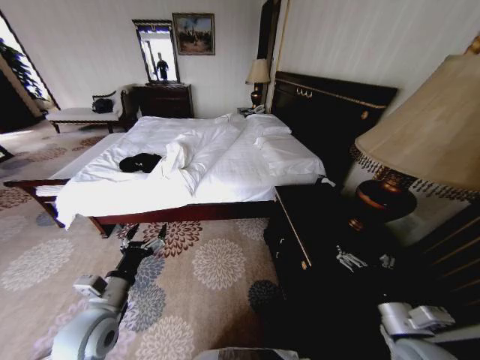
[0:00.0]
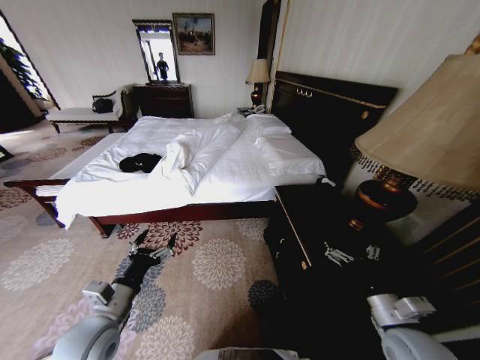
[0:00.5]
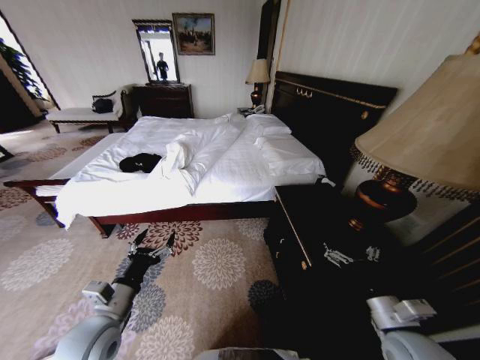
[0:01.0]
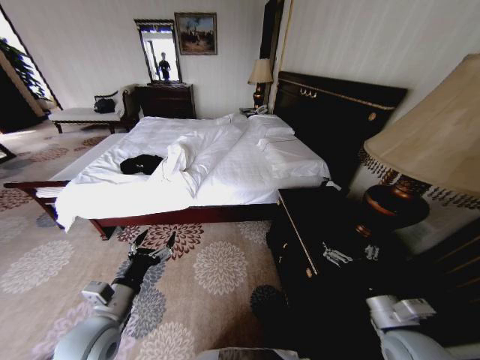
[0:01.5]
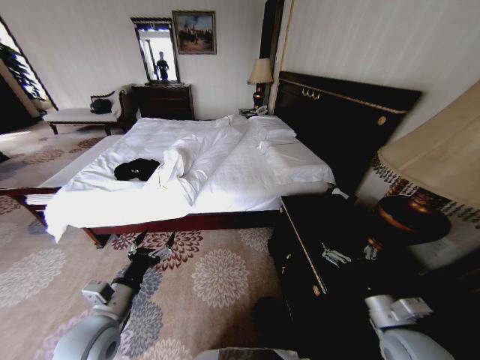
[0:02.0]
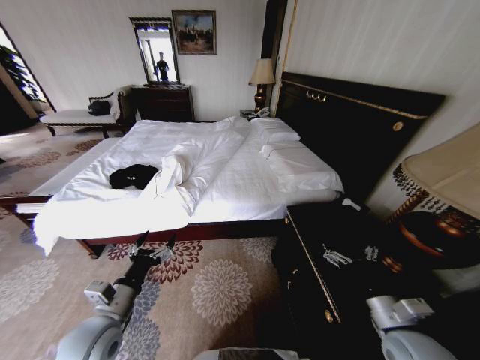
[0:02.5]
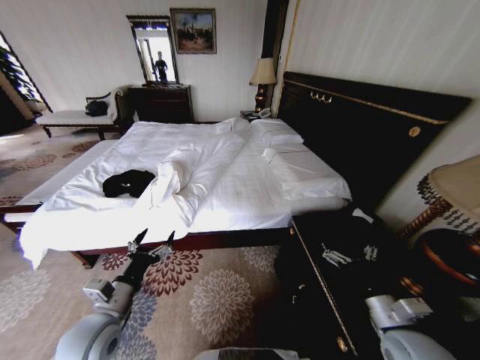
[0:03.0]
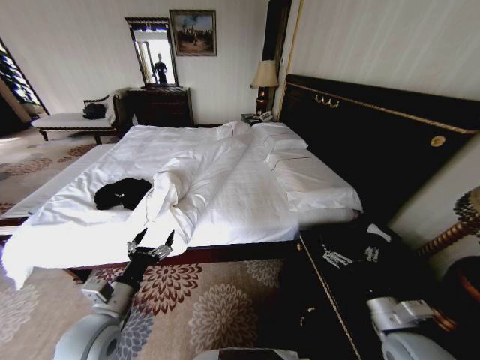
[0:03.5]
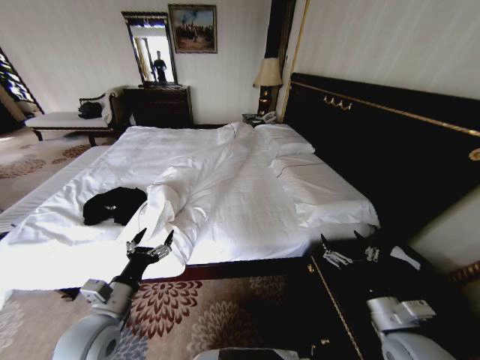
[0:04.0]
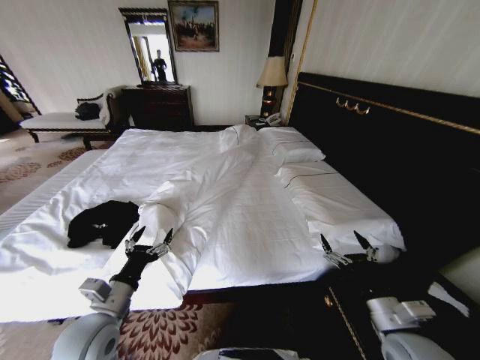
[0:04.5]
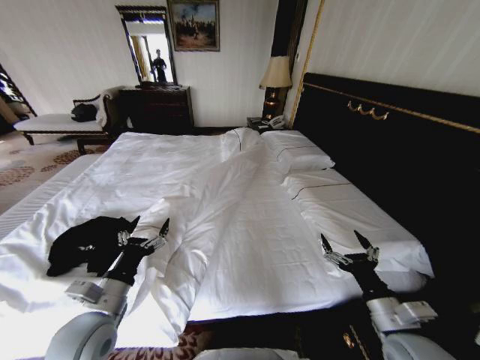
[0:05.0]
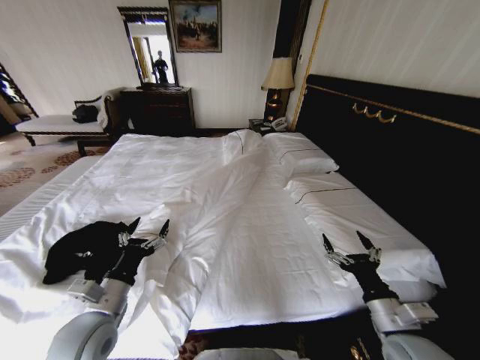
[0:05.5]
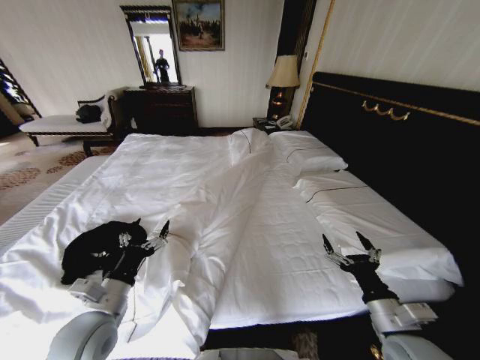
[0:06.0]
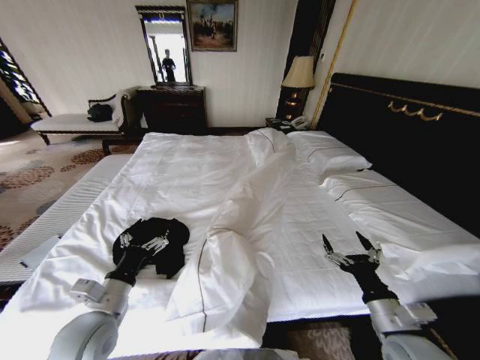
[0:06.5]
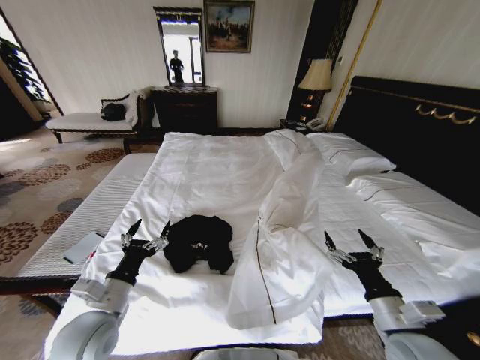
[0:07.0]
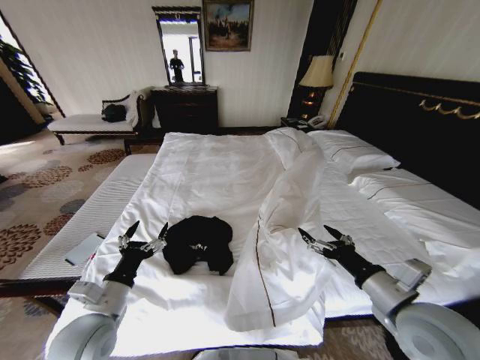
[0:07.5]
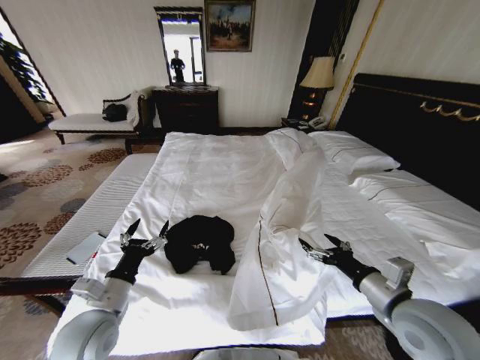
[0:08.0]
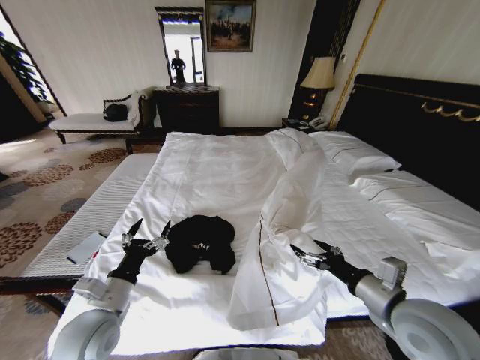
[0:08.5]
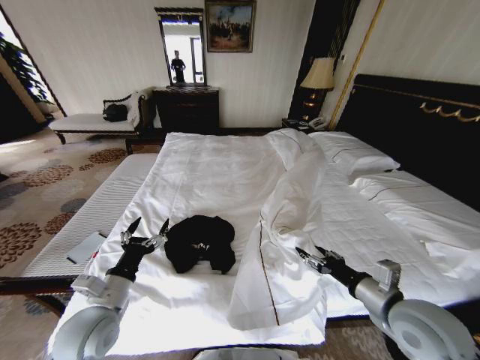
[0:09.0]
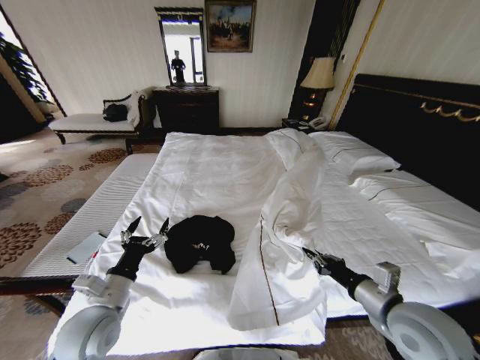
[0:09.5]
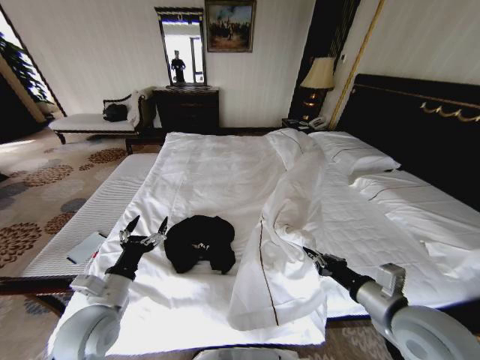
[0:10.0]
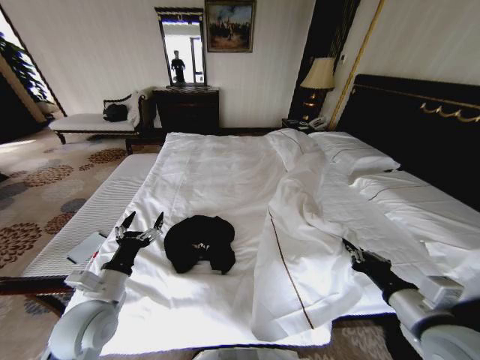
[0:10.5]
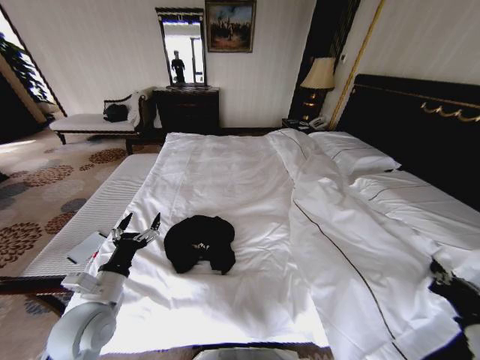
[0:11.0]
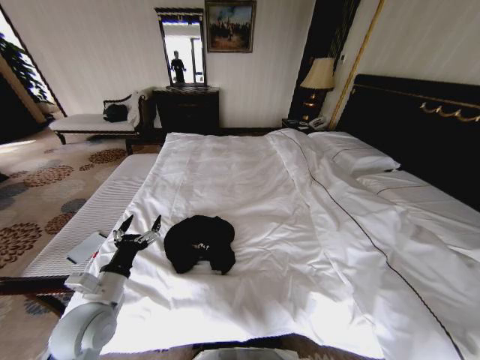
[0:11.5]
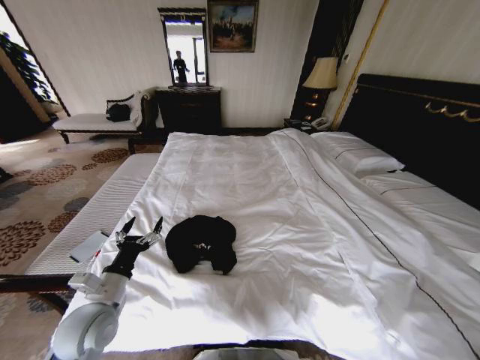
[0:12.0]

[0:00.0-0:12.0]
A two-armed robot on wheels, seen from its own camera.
Task of the whole recording: Fold the clothes on the bed.
0:06.0 to 0:08.0: The right gripper moves upward, approximately 10 cm.
0:08.0 to 0:10.0: The right gripper closes up.
0:10.0 to 0:12.0: The right gripper is displaced to the right, backward and downward by roughly 35 cm.

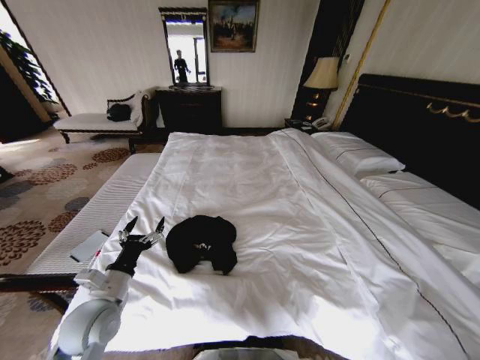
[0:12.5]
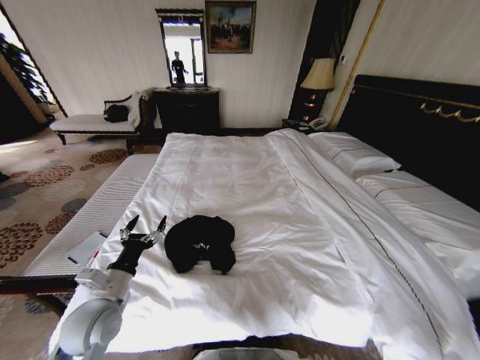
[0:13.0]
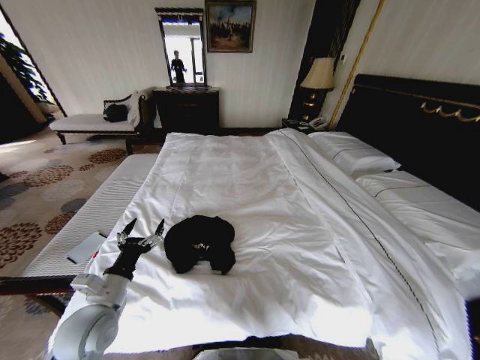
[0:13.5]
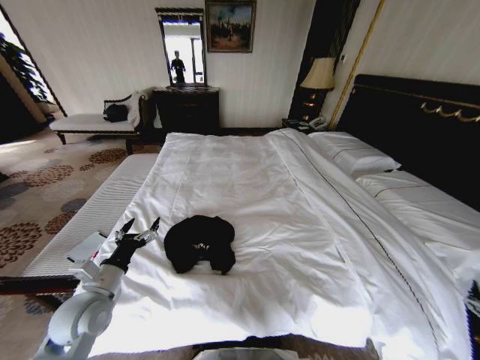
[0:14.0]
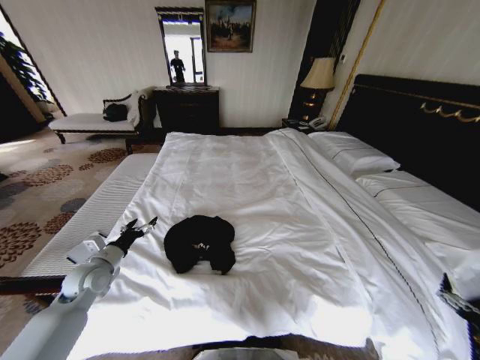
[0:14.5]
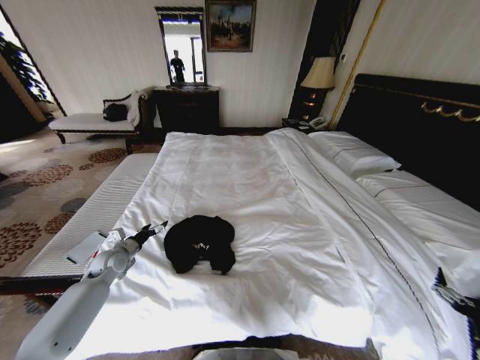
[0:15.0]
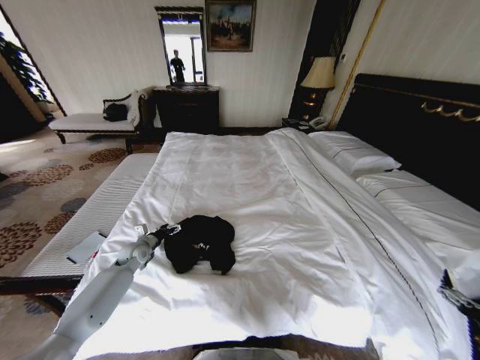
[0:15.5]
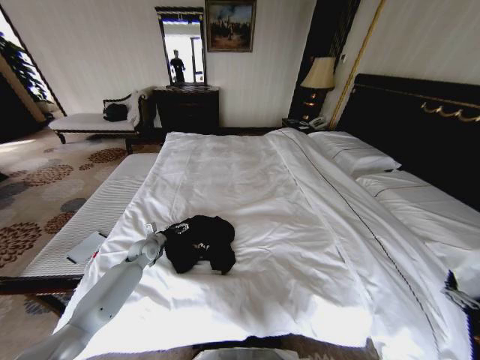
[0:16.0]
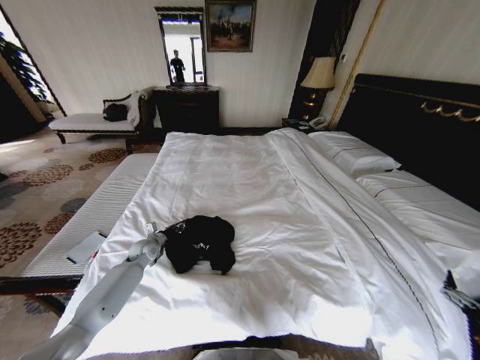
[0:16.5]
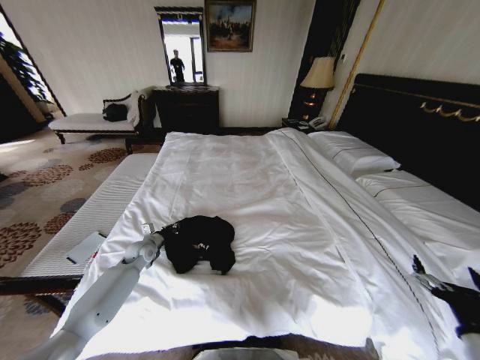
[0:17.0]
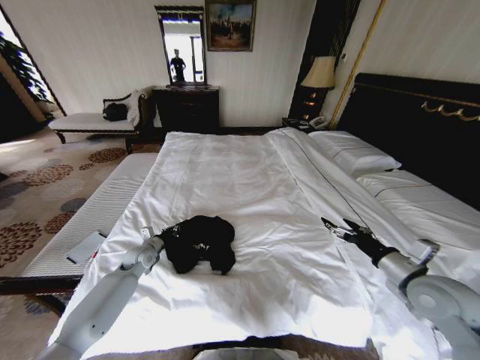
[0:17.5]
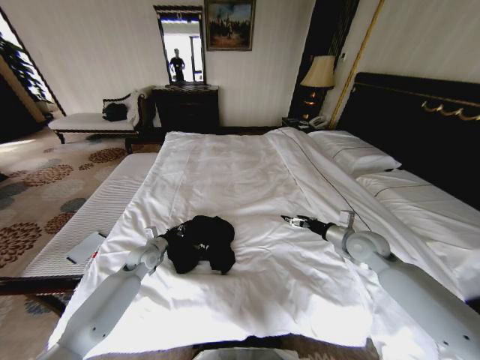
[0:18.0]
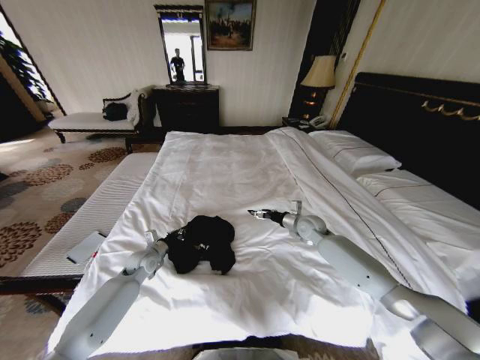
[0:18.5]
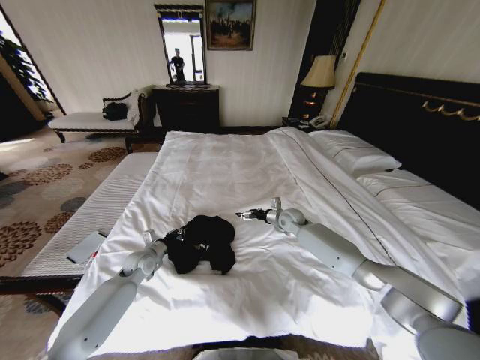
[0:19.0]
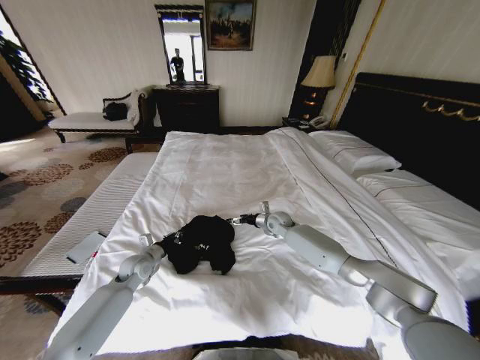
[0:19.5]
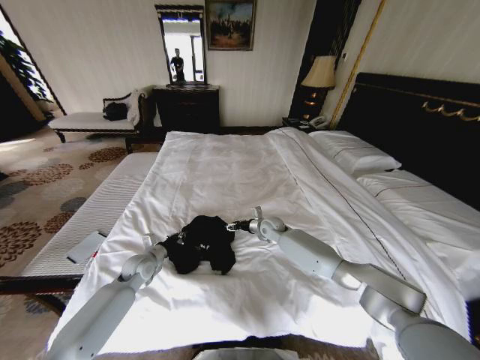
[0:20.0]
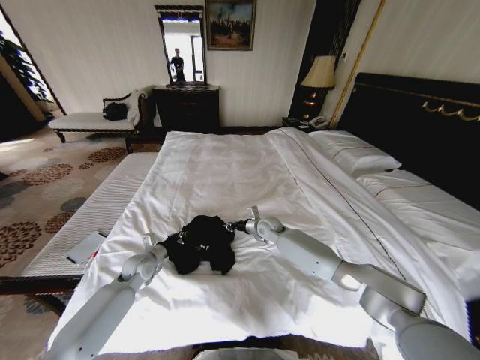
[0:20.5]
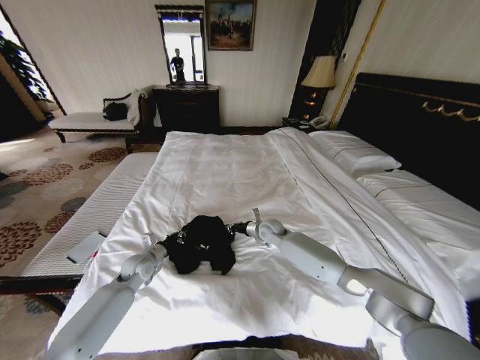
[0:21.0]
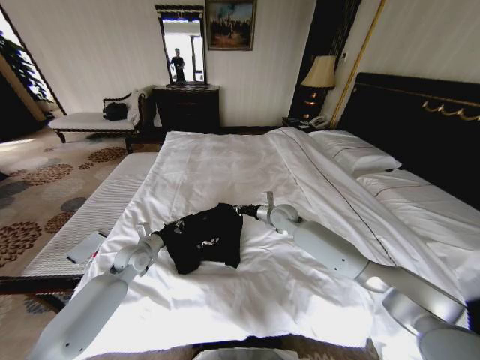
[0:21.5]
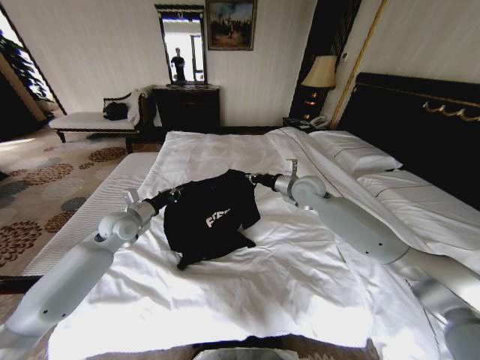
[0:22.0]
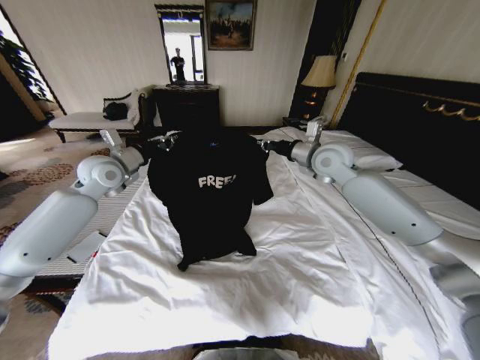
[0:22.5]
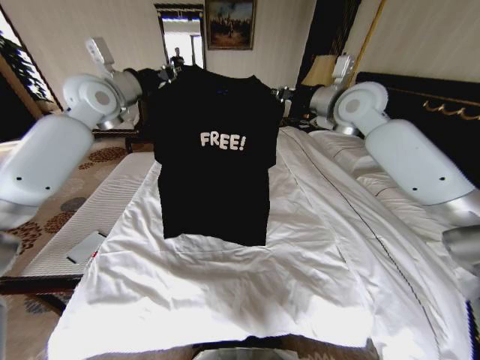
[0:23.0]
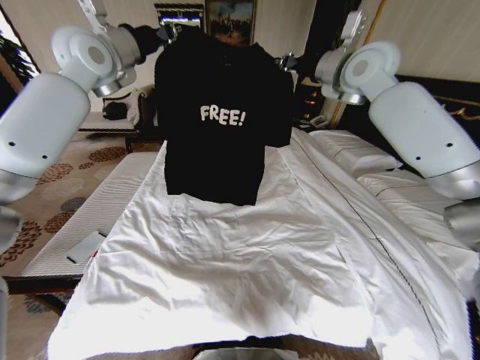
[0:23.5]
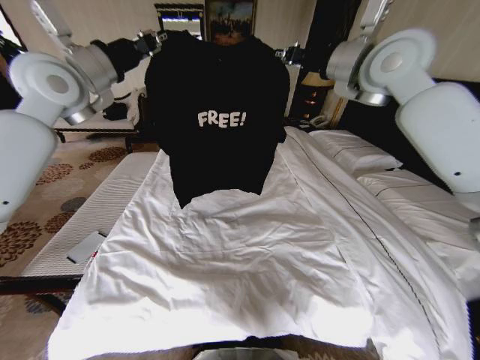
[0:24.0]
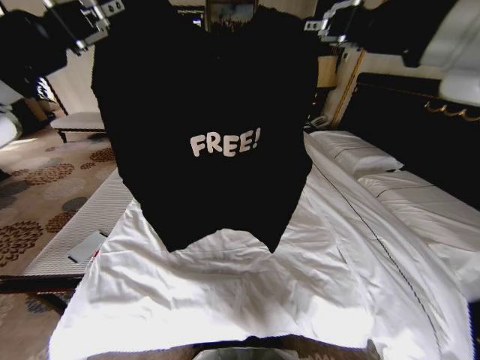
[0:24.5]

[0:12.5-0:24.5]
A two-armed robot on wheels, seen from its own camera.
Task of the whole recording: Fold the clothes on the bed.
0:12.5 to 0:14.5: The left gripper travels forward and to the left by about 15 cm. Meanwhile the right gripper travels to the left, upward and forward by roughly 20 cm, and opens its fingers.
0:14.5 to 0:16.5: The left gripper moves forward, downward and to the right, roughly 20 cm, and closes.
0:16.5 to 0:18.5: The left gripper ends up roughly 5 cm from where it was, while the right gripper is displaced forward by approximately 40 cm.
0:18.5 to 0:20.5: The right gripper is displaced to the left by approximately 15 cm, and closes.
0:20.5 to 0:22.5: The two grippers go approximately 30 cm upward.
0:22.5 to 0:24.5: The grippers both shift backward and upward by roughly 30 cm.

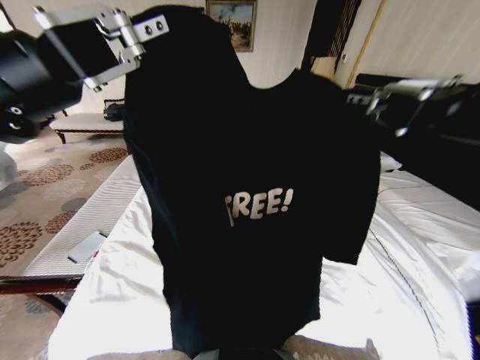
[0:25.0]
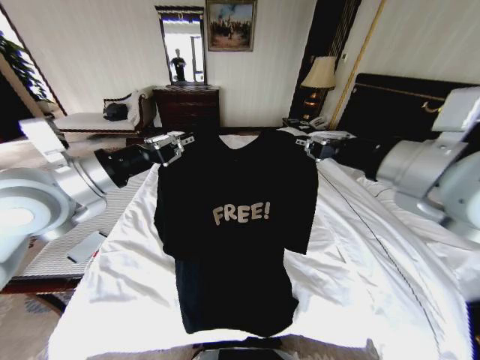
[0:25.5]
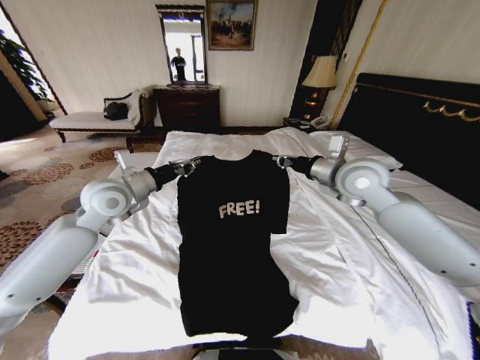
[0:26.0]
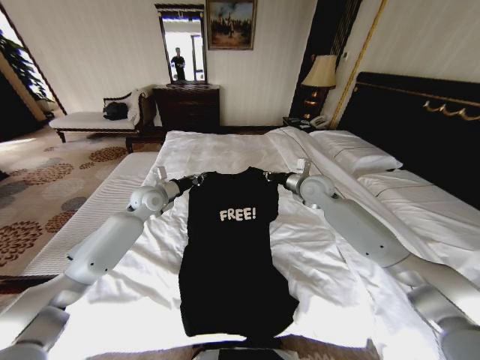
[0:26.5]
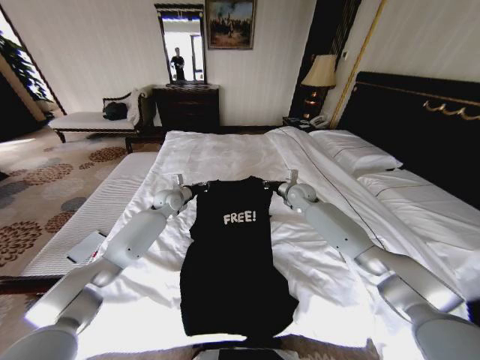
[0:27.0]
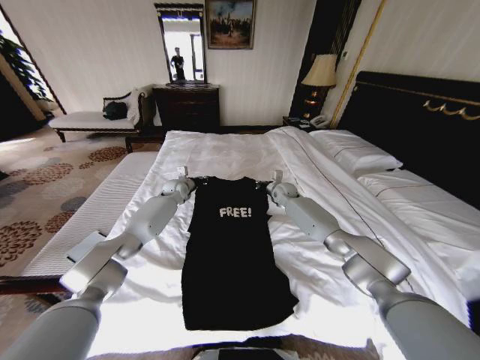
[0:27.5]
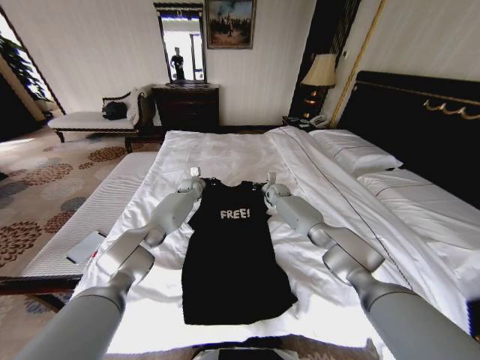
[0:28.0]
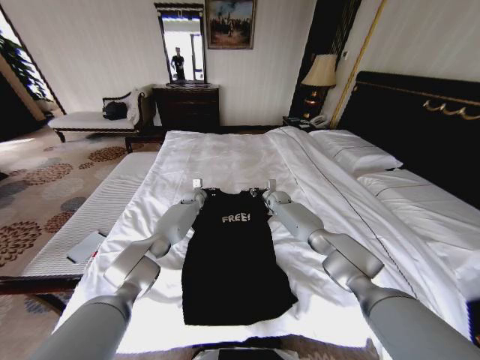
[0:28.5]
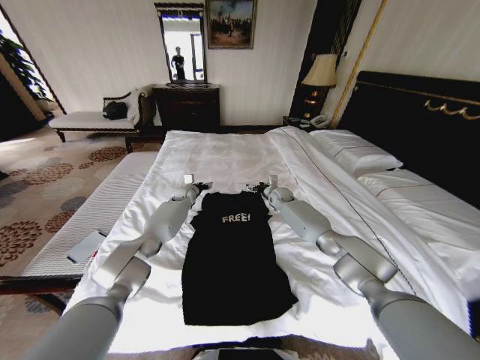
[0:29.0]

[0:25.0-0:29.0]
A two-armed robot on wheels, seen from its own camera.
Task of the whole recording: Fold the clothes on the bed.
0:25.0 to 0:27.0: The right gripper is displaced forward and downward by about 60 cm. Meanwhile the left gripper heads downward and forward, covering some 50 cm.
0:27.0 to 0:29.0: The right gripper is displaced downward and forward by some 10 cm, and opens, while the left gripper travels forward and downward by about 10 cm, and opens.
